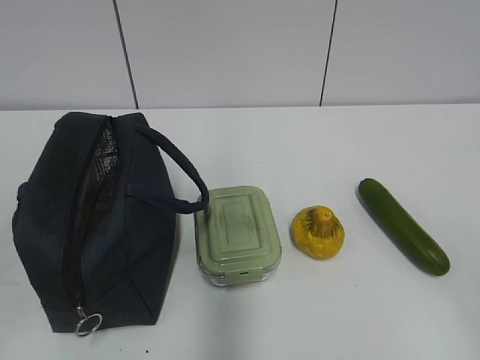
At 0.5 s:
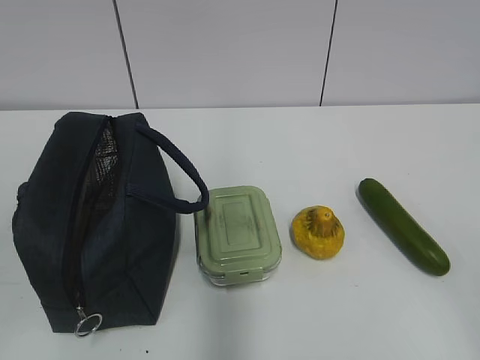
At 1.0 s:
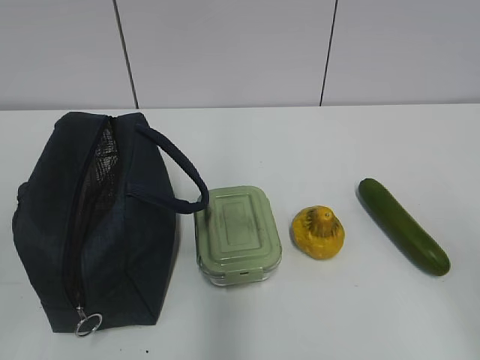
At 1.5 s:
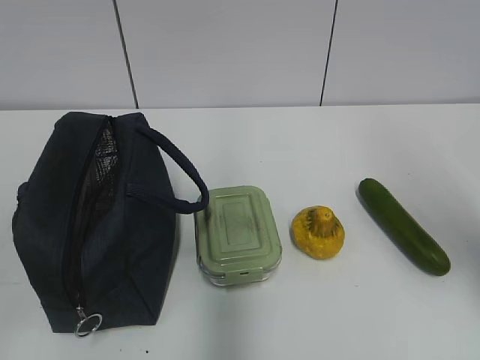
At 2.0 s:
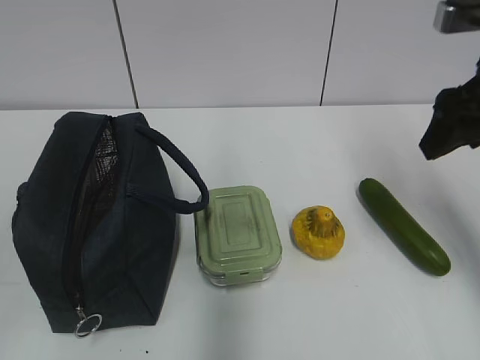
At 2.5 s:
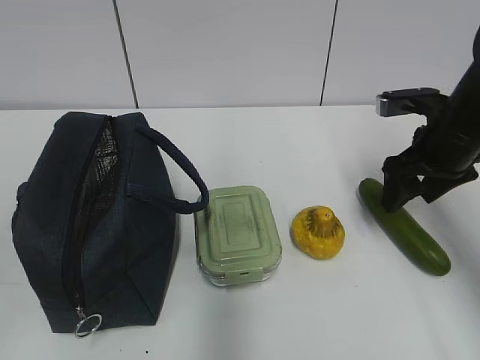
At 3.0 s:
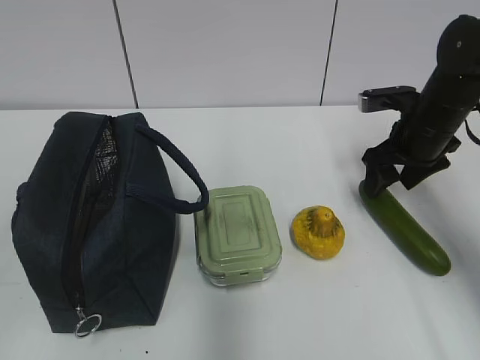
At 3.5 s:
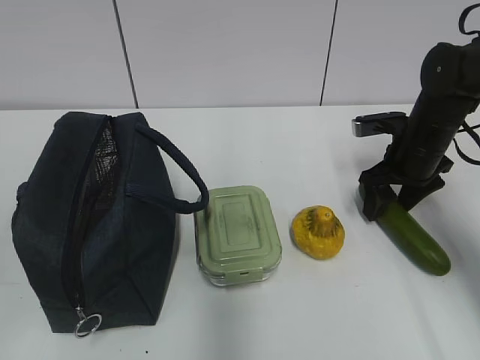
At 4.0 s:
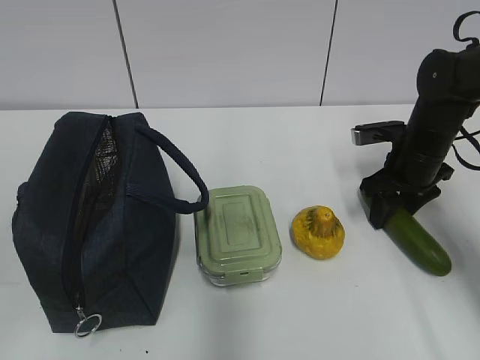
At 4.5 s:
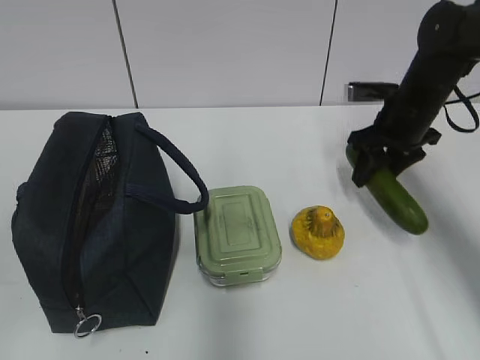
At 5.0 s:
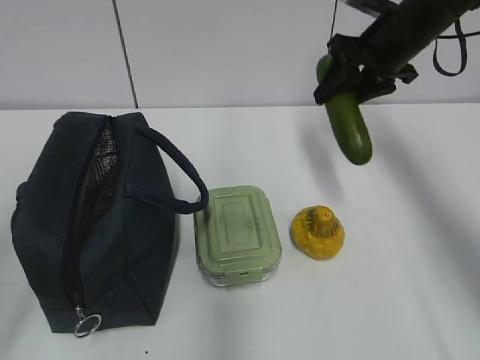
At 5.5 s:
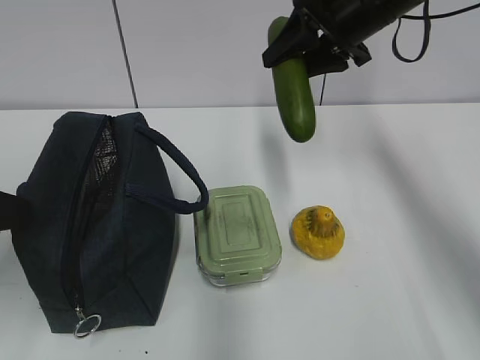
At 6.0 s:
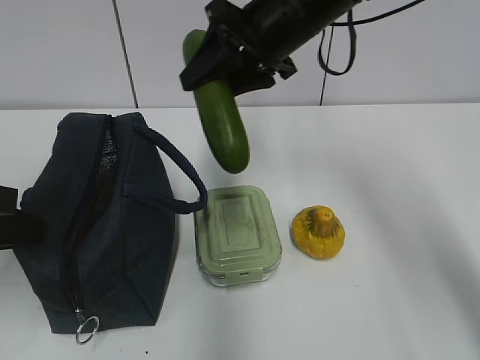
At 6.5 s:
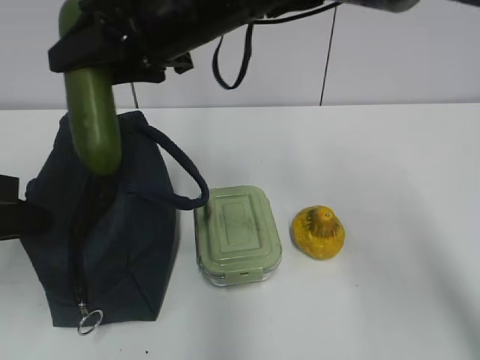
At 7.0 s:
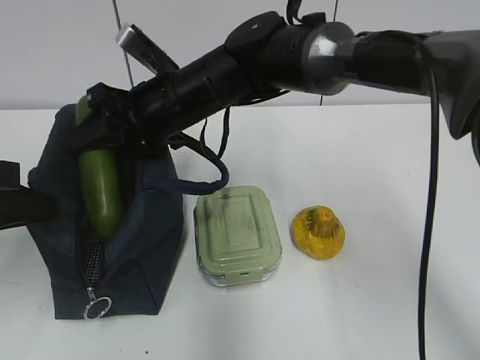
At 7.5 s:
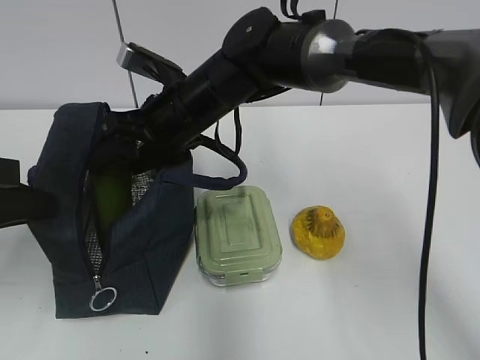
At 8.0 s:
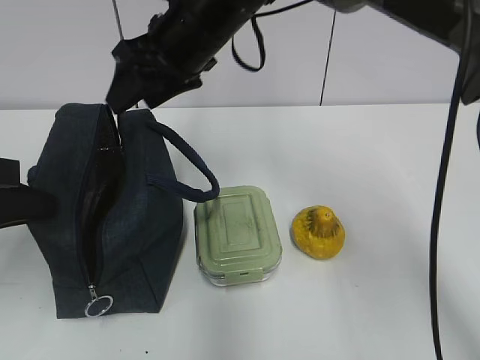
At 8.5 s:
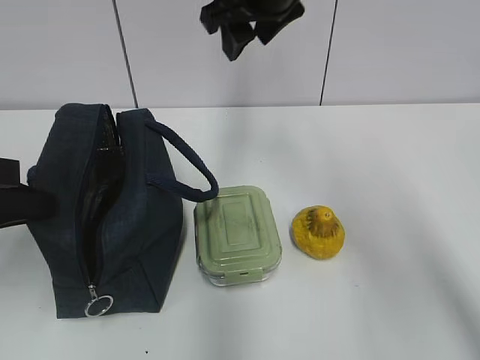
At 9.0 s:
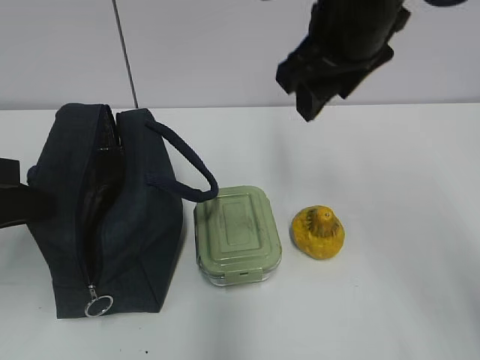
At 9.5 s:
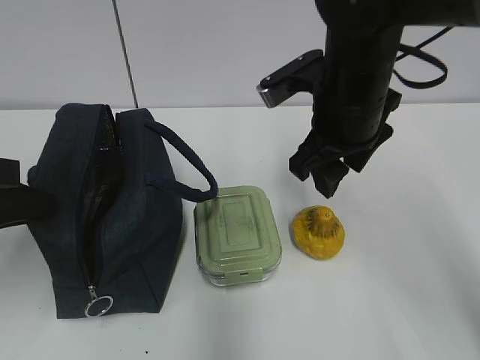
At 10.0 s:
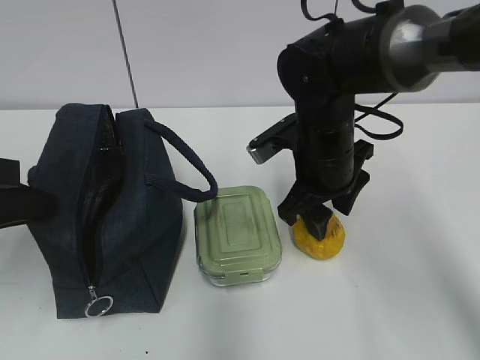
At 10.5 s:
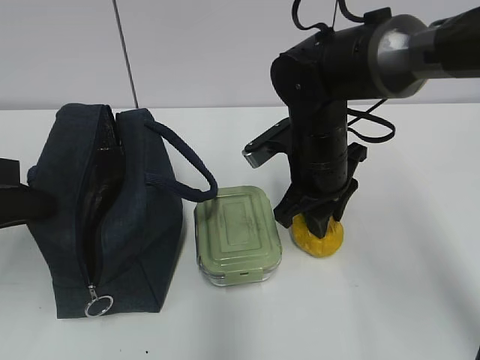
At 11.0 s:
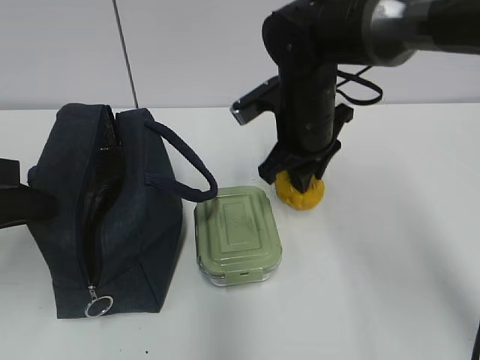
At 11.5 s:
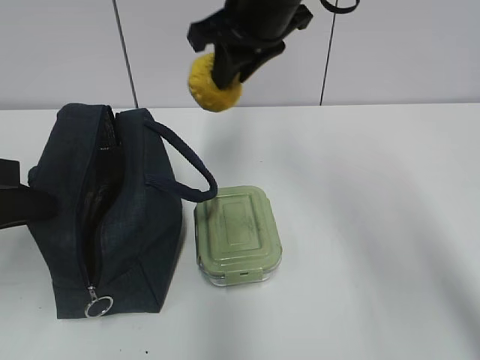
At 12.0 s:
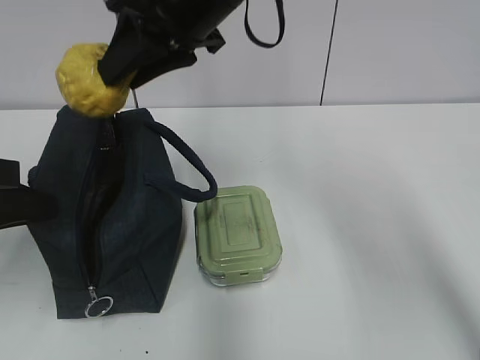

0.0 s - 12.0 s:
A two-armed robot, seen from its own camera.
Step, 0.0 s - 4.0 s: Grab the cucumber with your right hand.
Step, 4.5 s - 6.5 s: Grab the lunch bag with your left hand.
Step, 7.0 s - 7.5 s: Place it into the bag with your right hand.
Step, 8.0 s - 10.5 s: Grab the pear with your right hand.
2.0 s - 4.0 s: The right gripper moves downward and forward, about 20 cm.
4.0 s - 6.0 s: The left gripper is displaced forward by some 20 cm, and closes. Meanwhile the right gripper goes about 25 cm upward and to the left.
6.0 s - 8.0 s: The right gripper is displaced to the left by approximately 10 cm.
8.0 s - 10.0 s: The right gripper moves downward, to the right and backward, approximately 15 cm.
10.0 s - 12.0 s: The right gripper heads upward and to the left, covering approximately 20 cm, and closes up.

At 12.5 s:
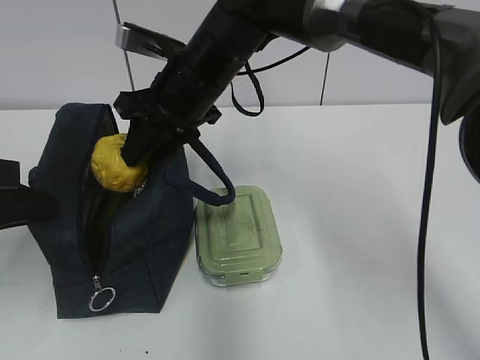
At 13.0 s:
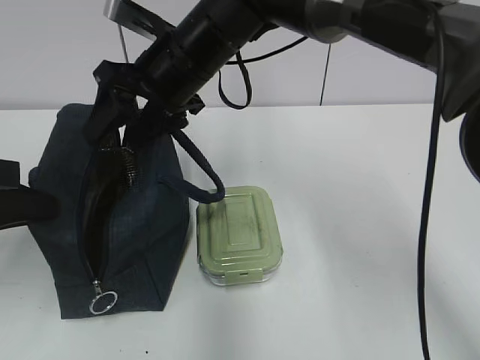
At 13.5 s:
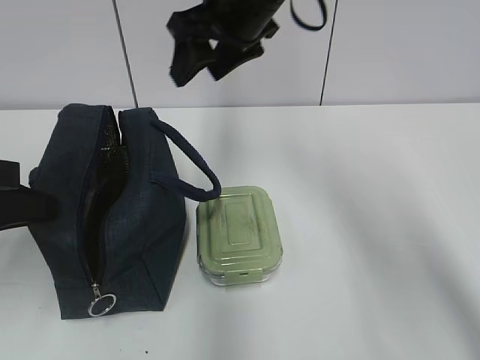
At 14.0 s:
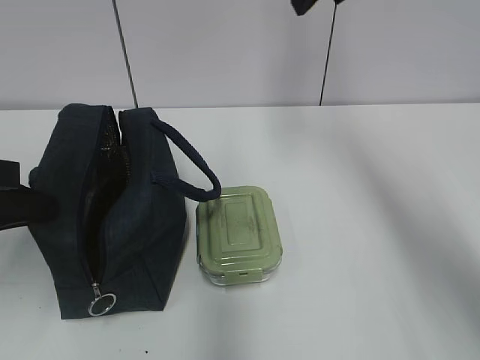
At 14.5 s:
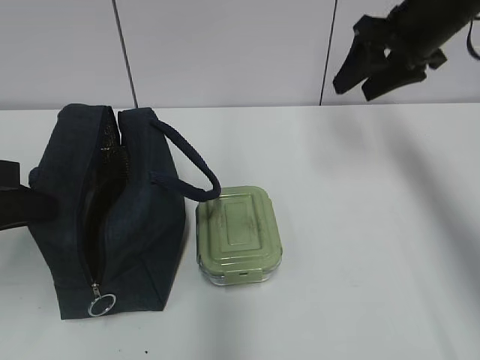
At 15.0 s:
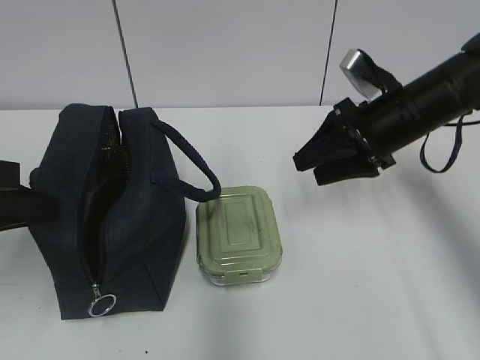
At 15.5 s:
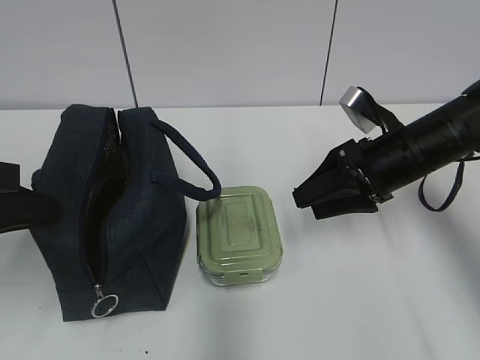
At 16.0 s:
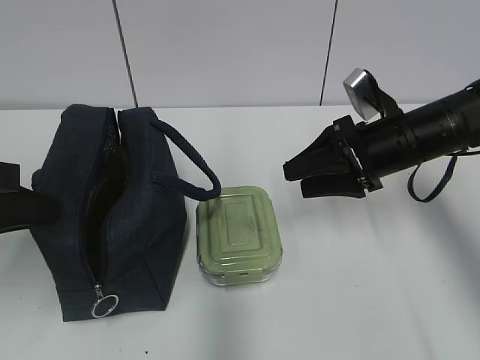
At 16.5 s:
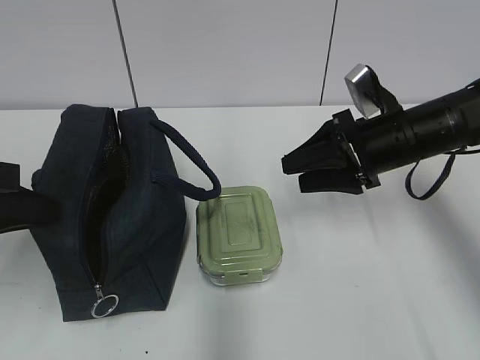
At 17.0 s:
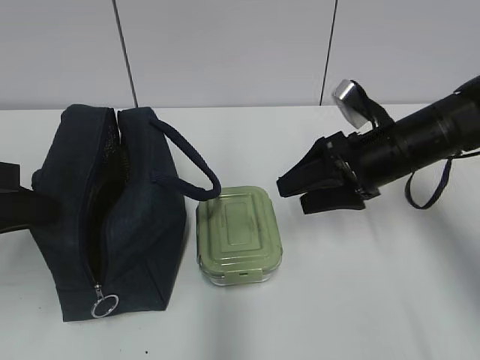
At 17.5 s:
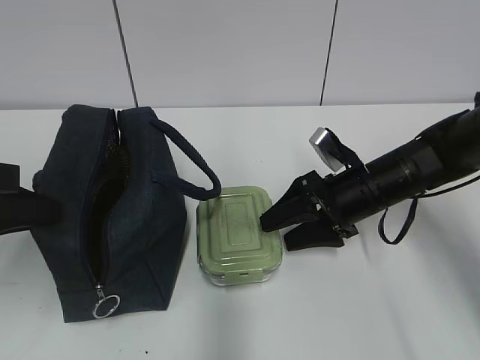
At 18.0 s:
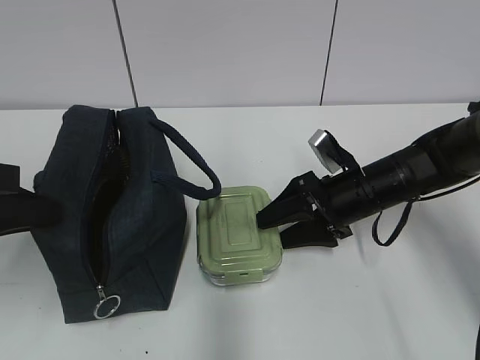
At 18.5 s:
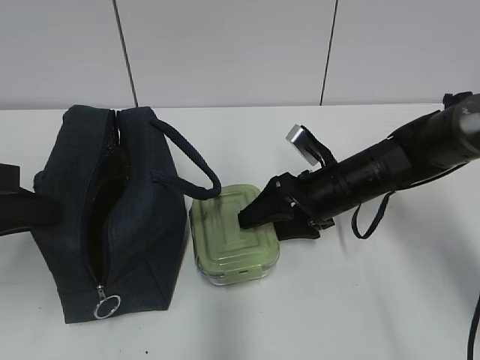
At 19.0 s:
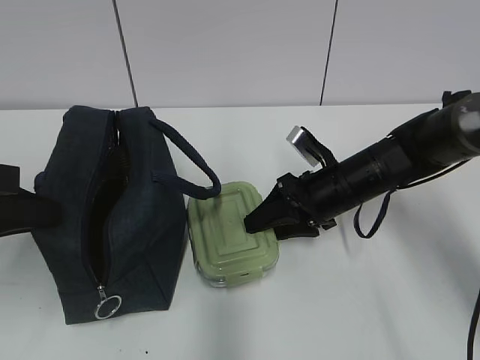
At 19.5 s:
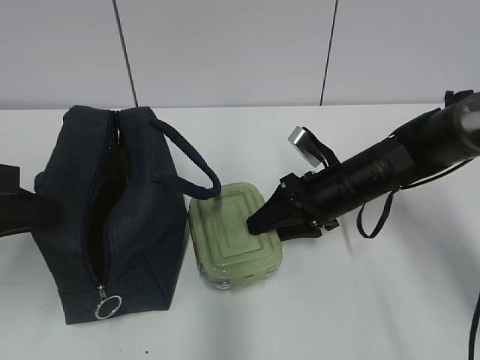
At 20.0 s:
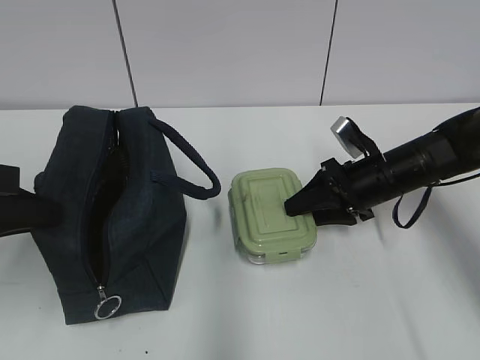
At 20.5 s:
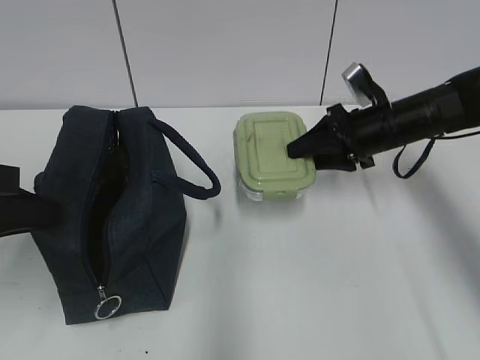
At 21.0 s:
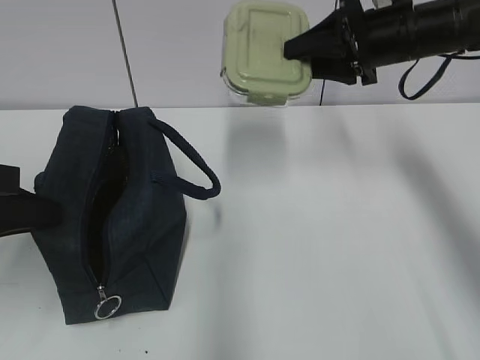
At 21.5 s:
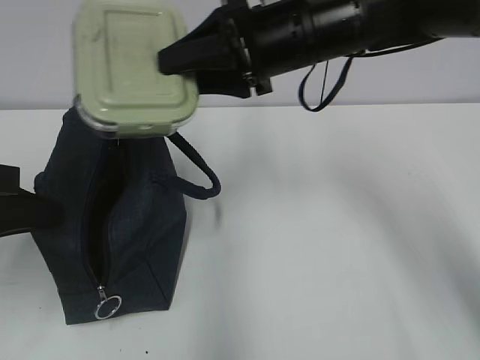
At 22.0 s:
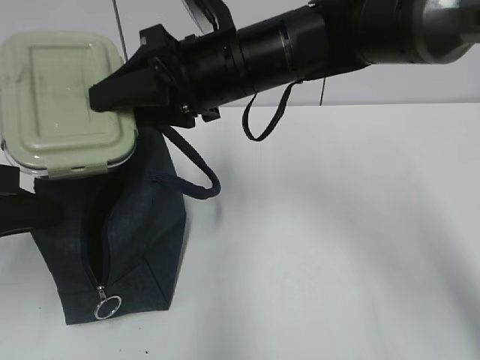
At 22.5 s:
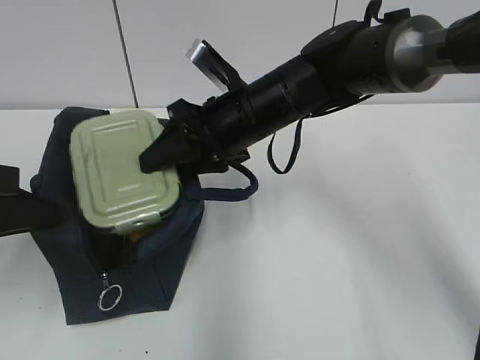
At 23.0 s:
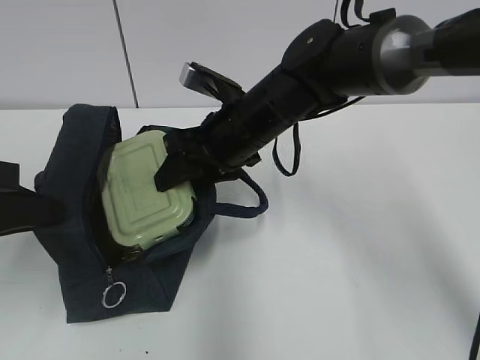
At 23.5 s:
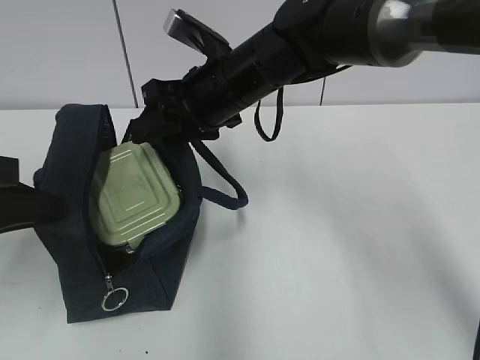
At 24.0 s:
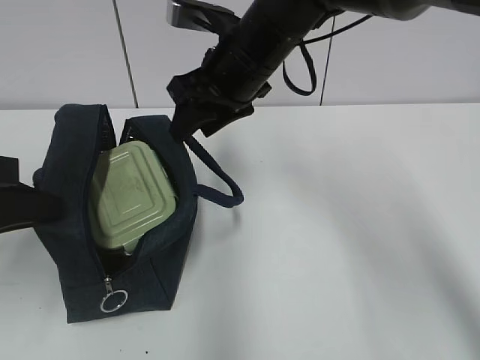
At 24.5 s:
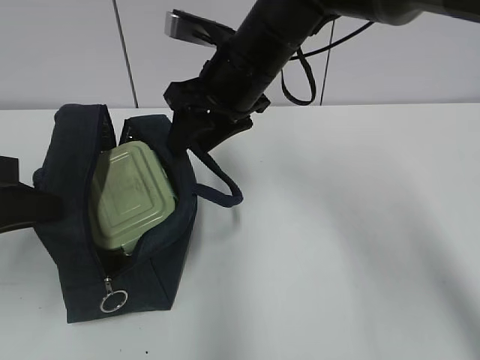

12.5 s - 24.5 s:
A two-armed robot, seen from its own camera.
Step, 13.0 s - 19.5 s: Grab the lunch box with your right hand.
12.5 s - 14.5 s: The right gripper moves to the right, some 25 cm, and opens its fingers.
14.5 s - 16.5 s: The right gripper travels downward and backward by some 15 cm.
16.5 s - 18.5 s: The right gripper moves downward and to the left, roughly 10 cm.
18.5 s - 20.5 s: The right gripper is displaced to the right and forward by some 10 cm, and closes up.
20.5 s - 22.5 s: The right gripper goes roughly 20 cm to the left.
22.5 s - 24.5 s: The right gripper shifts by approximately 5 cm.

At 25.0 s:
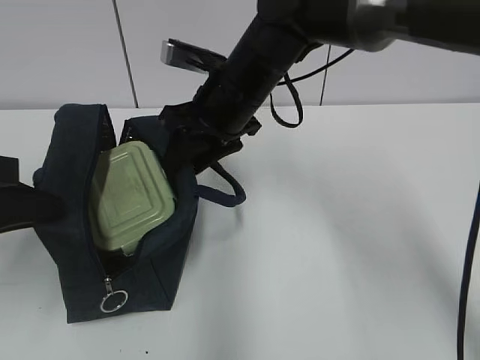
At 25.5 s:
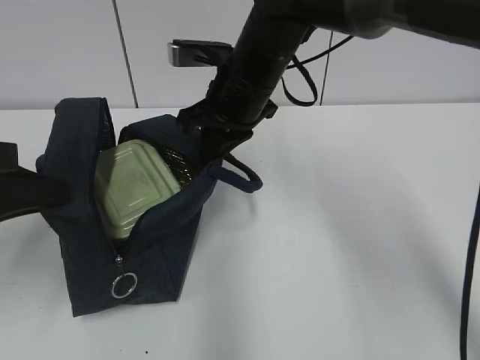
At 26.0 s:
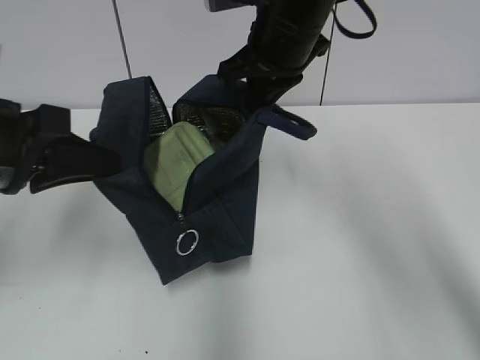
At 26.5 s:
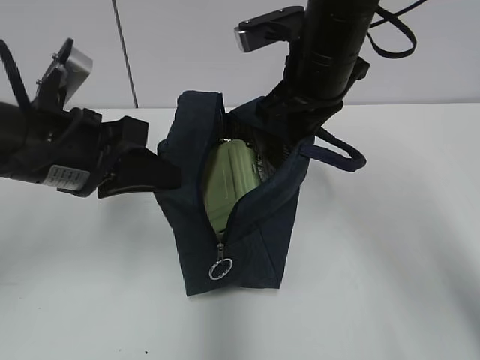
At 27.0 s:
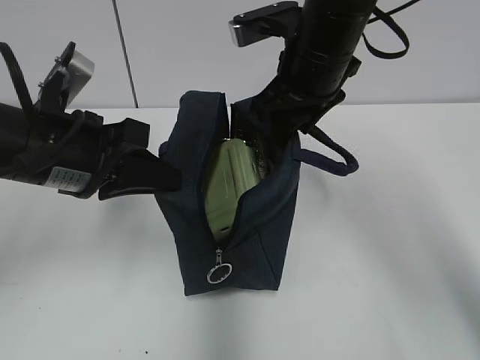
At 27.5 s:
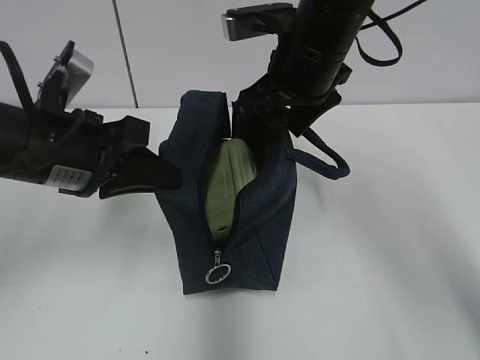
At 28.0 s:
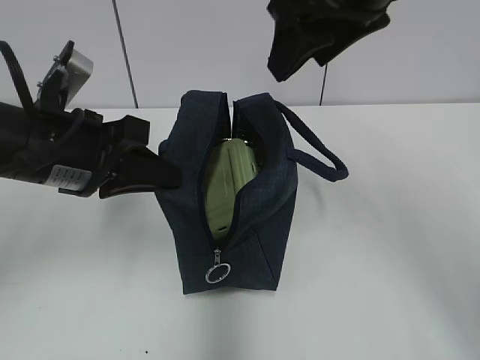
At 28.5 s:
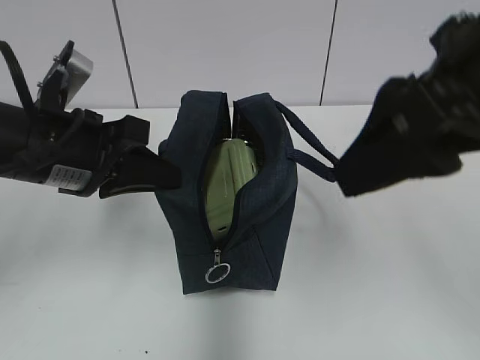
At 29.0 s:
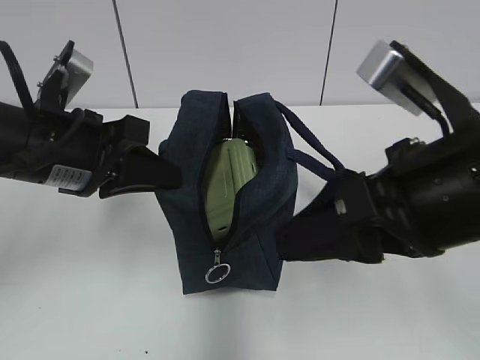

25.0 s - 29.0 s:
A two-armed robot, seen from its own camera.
Step, 25.5 s - 27.5 s: Move the lunch bag to the right.
25.0 s - 27.0 s: The left gripper goes approximately 10 cm to the right and forward. Meanwhile the right gripper goes some 10 cm to the right and upward, and closes, then opens again.
27.0 s - 29.0 s: The right gripper heads backward, covering roughly 20 cm.
